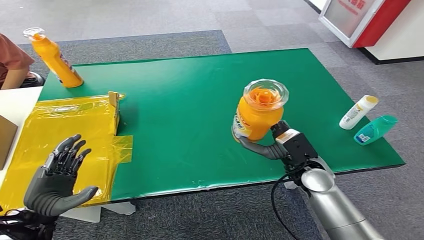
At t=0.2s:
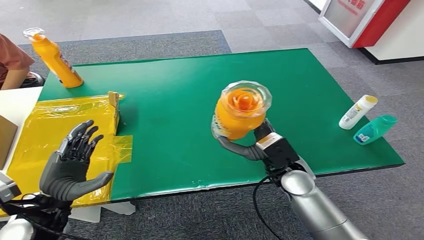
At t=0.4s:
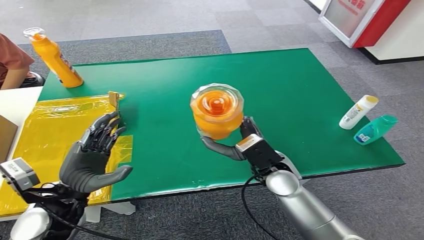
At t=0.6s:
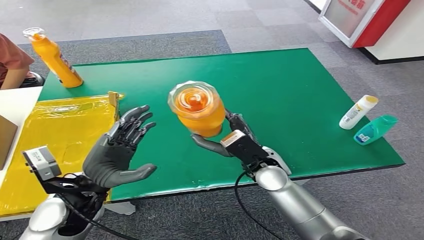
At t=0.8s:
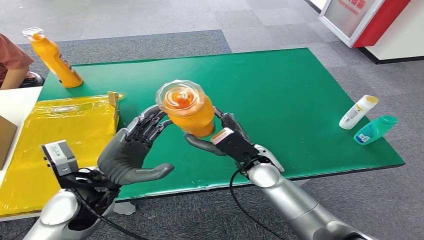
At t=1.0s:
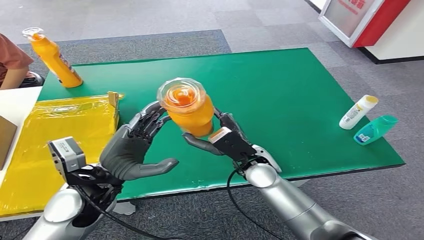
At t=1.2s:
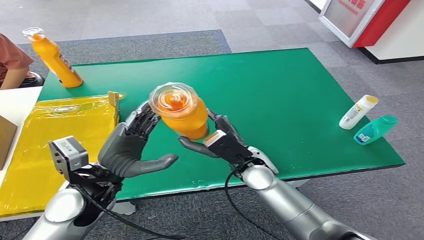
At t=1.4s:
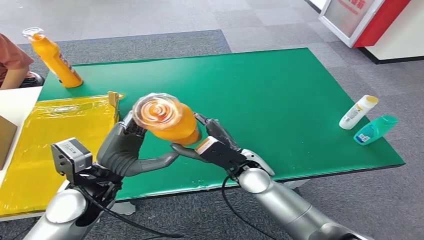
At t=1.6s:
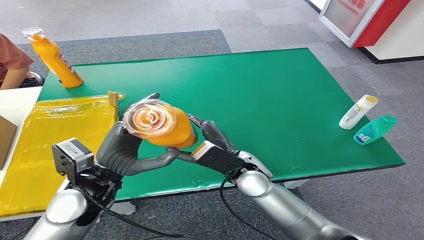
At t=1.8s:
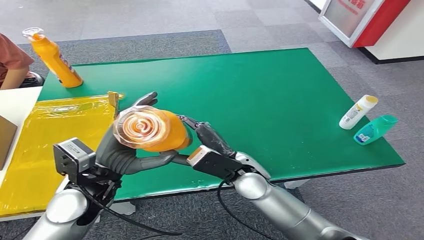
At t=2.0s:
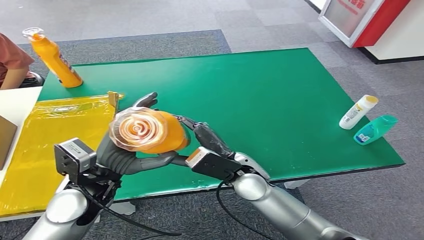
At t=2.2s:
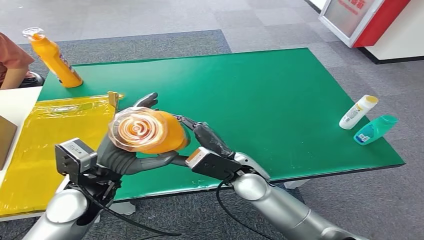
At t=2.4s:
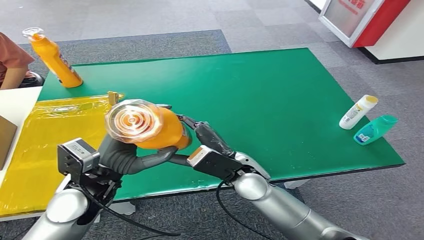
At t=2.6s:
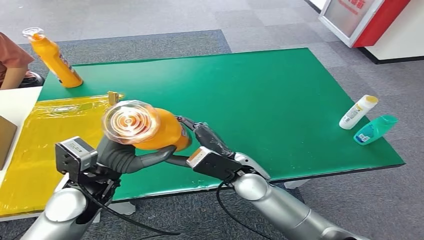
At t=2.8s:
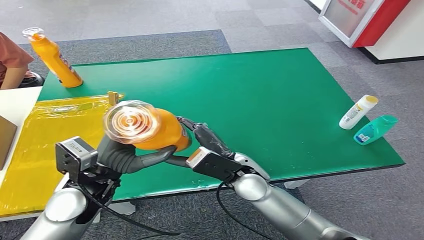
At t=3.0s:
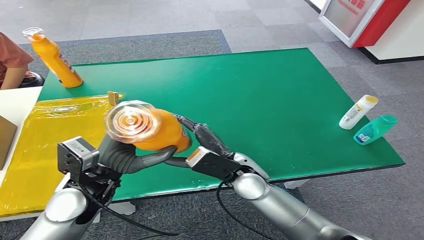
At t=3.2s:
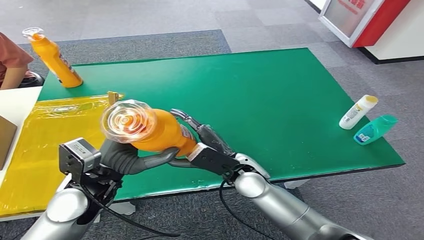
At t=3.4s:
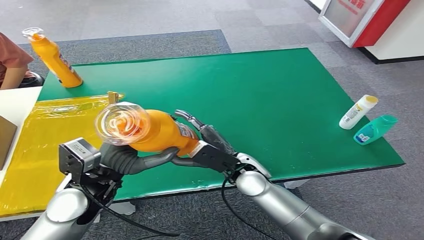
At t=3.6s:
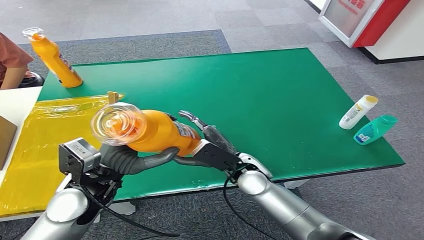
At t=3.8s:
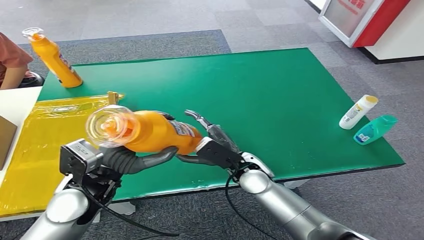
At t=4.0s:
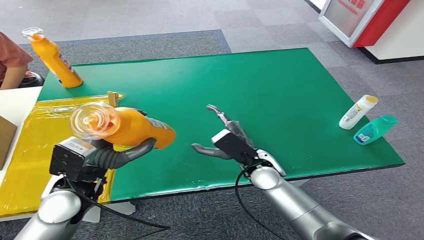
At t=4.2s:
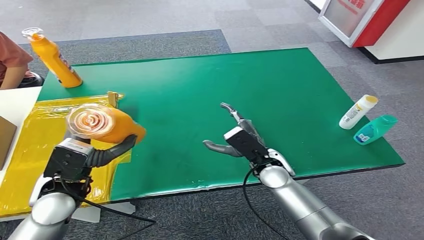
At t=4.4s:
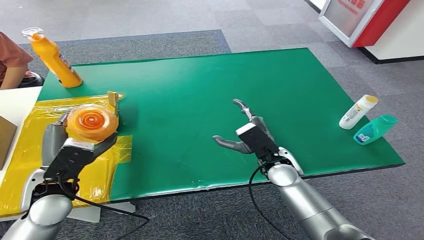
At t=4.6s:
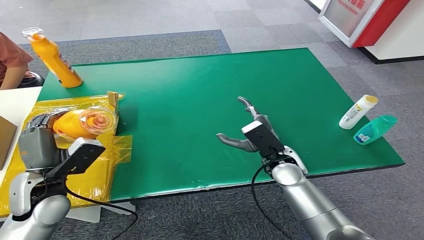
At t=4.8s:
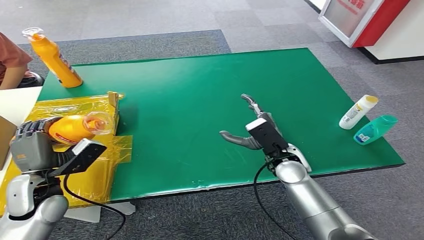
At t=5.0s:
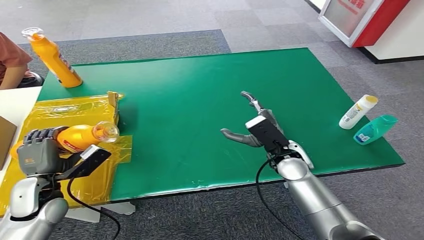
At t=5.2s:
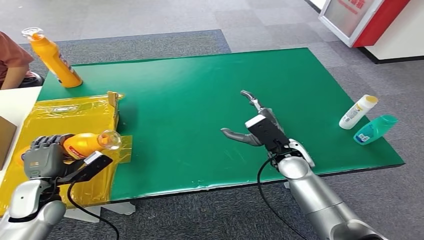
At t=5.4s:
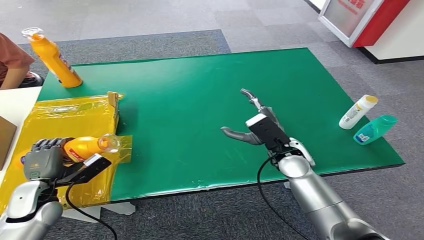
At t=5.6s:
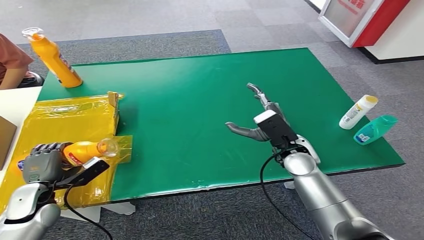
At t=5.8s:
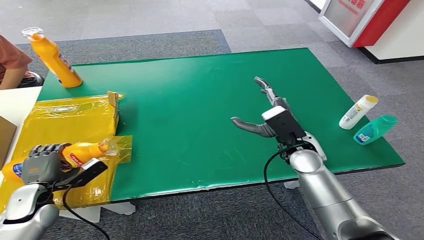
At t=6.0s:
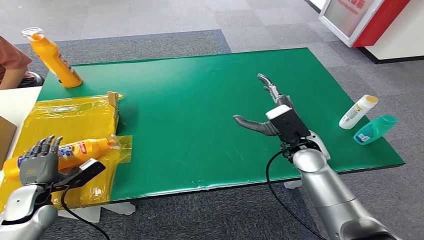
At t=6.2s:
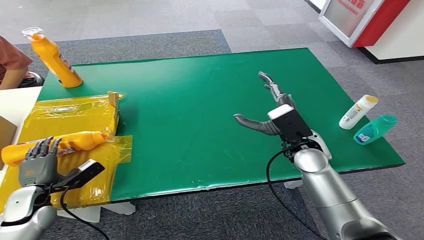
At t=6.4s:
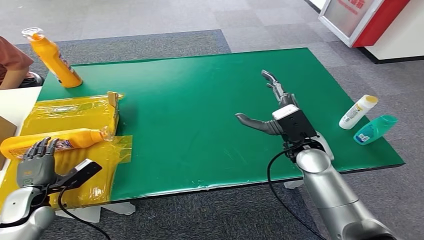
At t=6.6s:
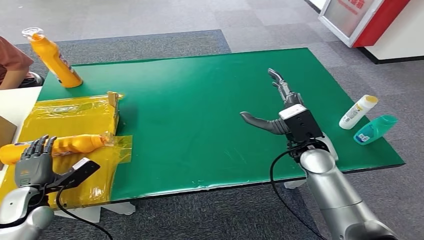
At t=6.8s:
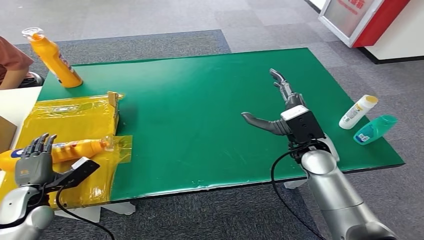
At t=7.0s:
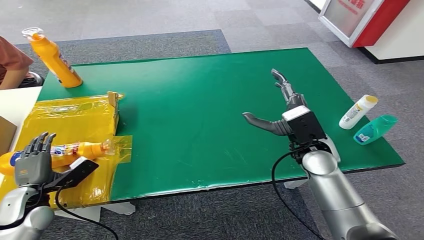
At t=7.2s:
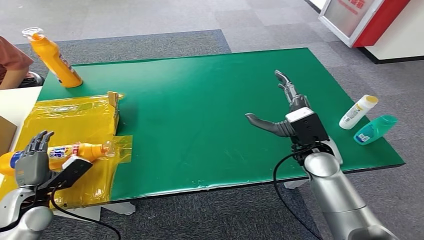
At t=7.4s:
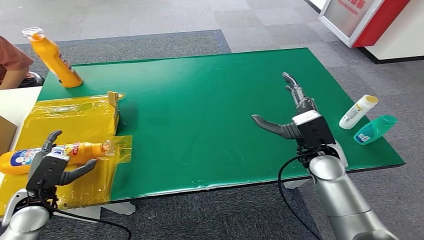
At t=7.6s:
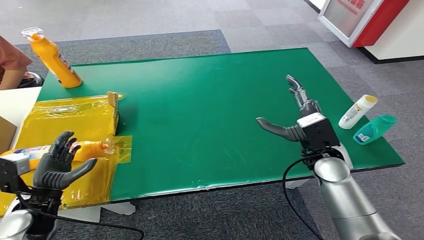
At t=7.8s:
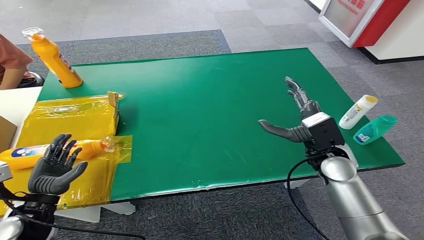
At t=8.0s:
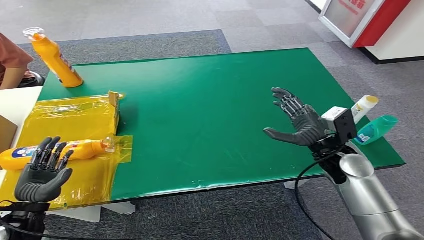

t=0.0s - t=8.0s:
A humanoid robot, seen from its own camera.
Step, t=0.2s - t=8.0s: Turn the bottle to the front side.
t=1.6s - t=3.2s: There are only small adjustments of the hands.
t=4.8s - t=6.4s: The right hand shifts about 5 cm upward; the left hand heads downward and to the left, covering approximately 10 cm.
t=6.4s - t=8.0s: The left hand shifts about 5 cm backward; the right hand goes roughly 5 cm to the right.

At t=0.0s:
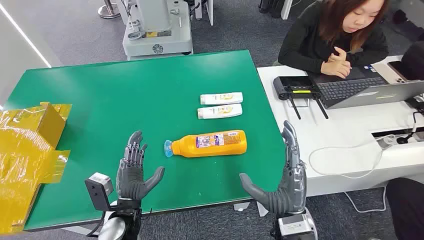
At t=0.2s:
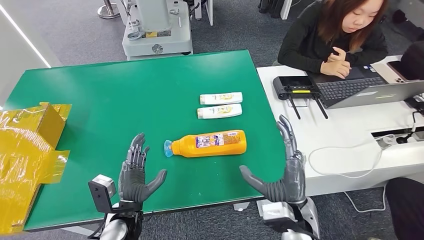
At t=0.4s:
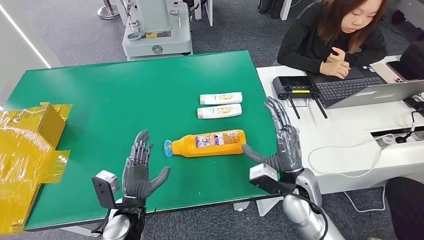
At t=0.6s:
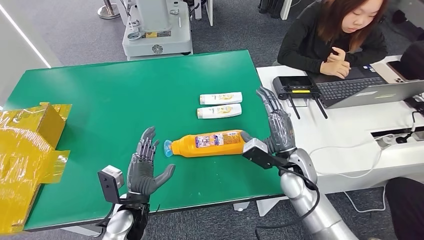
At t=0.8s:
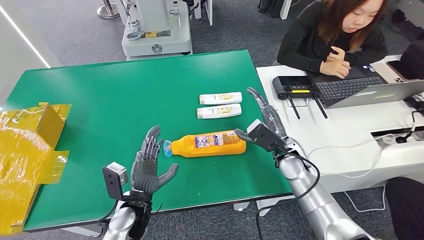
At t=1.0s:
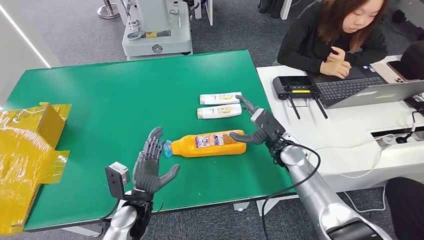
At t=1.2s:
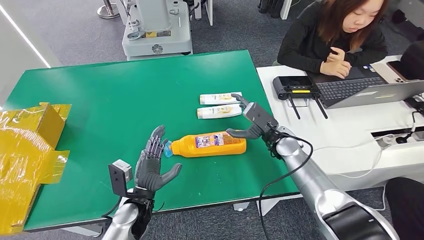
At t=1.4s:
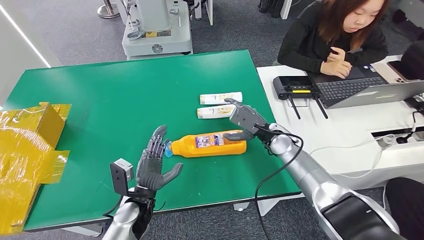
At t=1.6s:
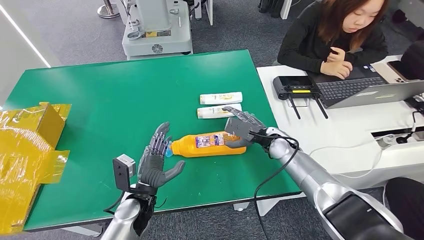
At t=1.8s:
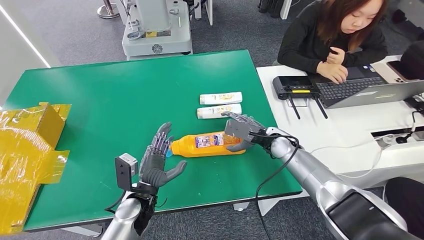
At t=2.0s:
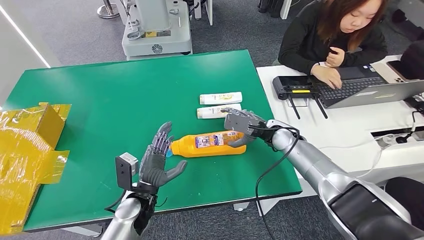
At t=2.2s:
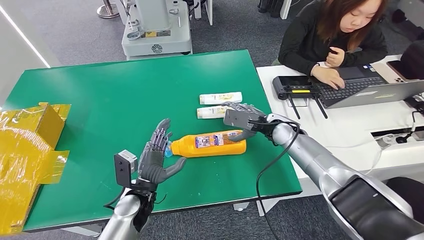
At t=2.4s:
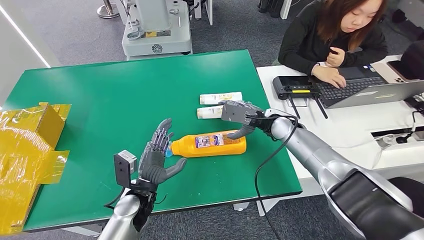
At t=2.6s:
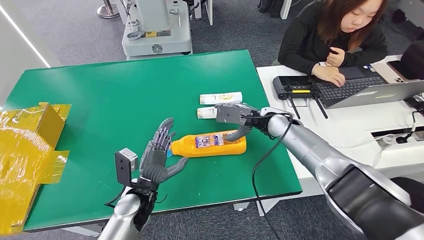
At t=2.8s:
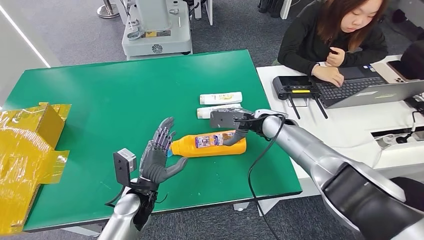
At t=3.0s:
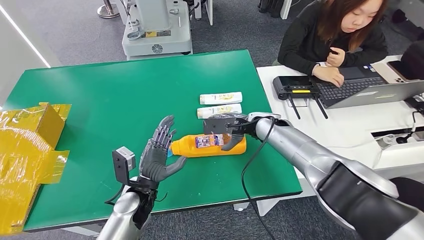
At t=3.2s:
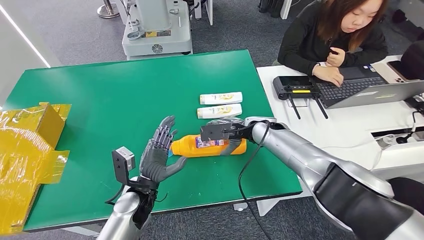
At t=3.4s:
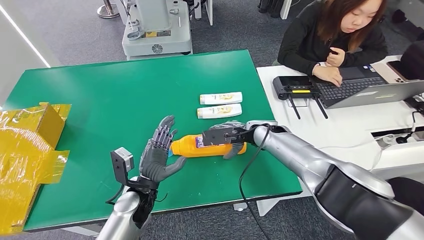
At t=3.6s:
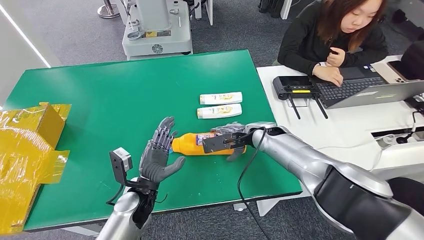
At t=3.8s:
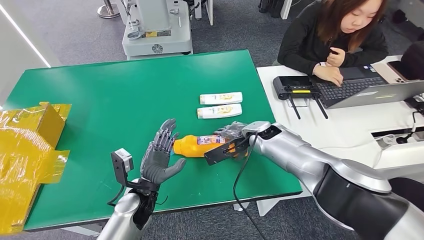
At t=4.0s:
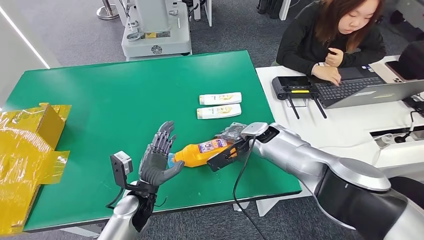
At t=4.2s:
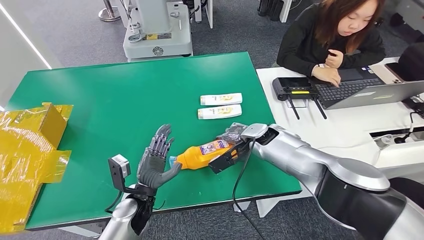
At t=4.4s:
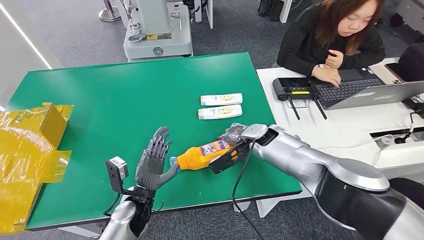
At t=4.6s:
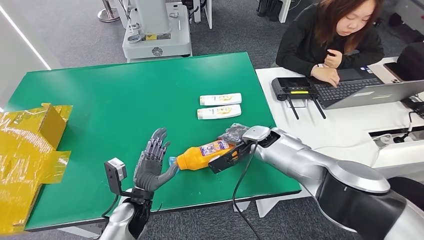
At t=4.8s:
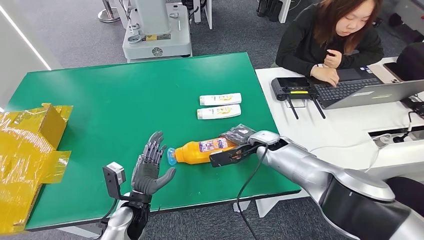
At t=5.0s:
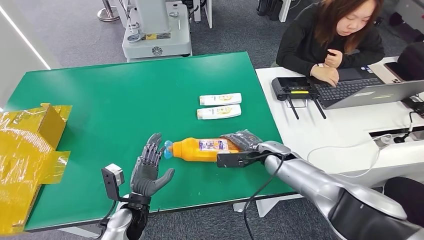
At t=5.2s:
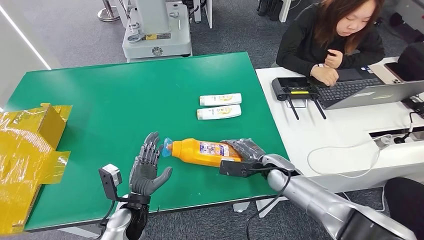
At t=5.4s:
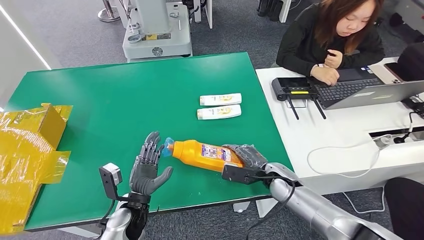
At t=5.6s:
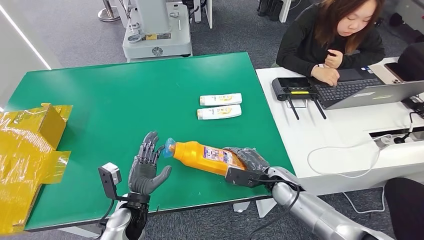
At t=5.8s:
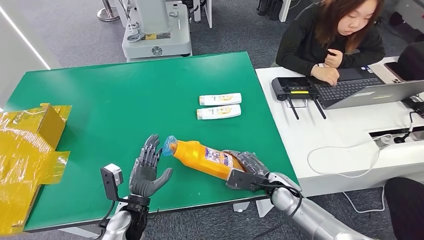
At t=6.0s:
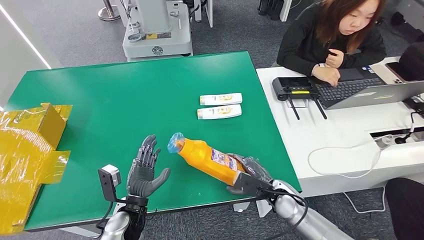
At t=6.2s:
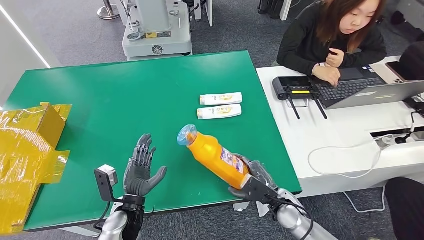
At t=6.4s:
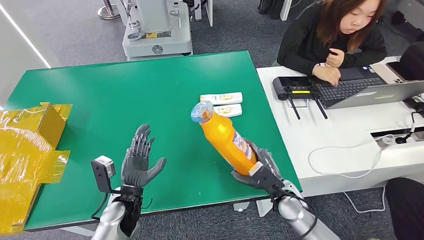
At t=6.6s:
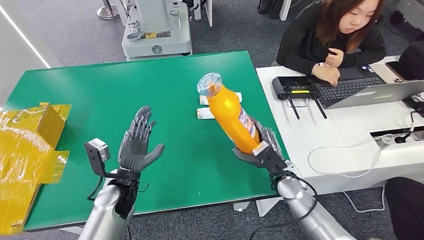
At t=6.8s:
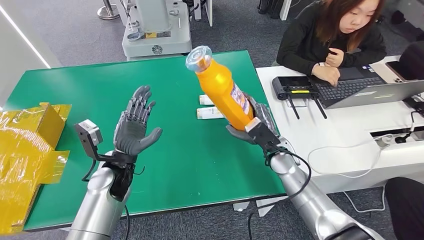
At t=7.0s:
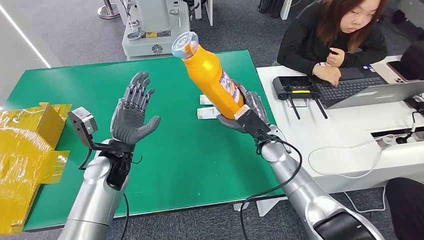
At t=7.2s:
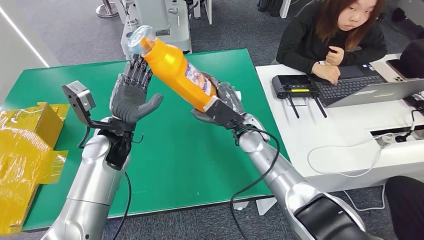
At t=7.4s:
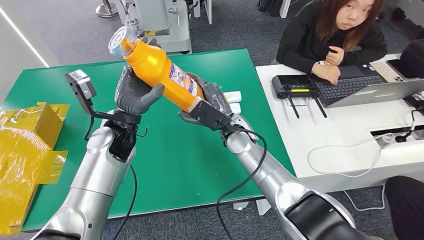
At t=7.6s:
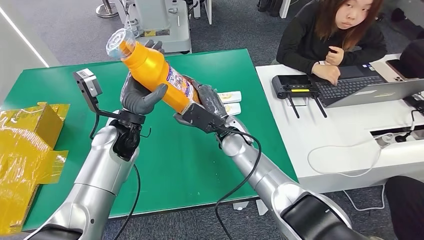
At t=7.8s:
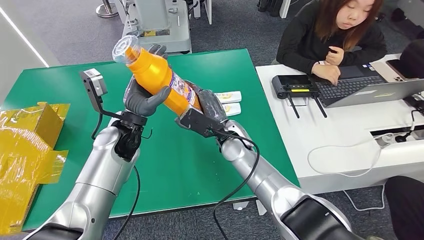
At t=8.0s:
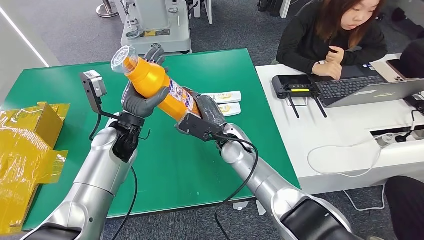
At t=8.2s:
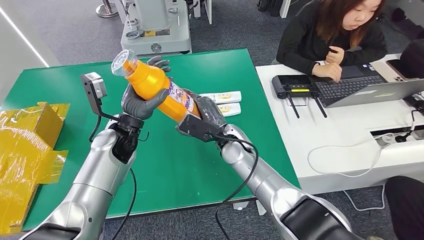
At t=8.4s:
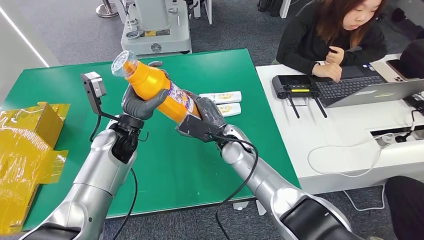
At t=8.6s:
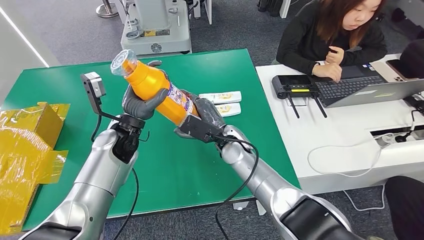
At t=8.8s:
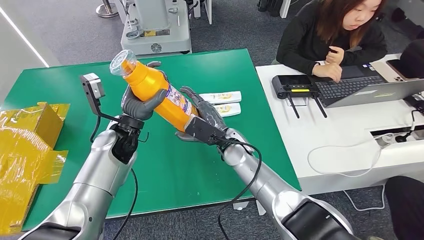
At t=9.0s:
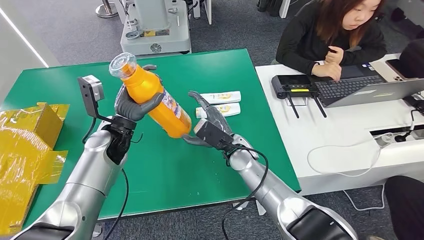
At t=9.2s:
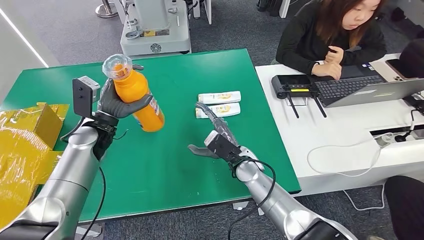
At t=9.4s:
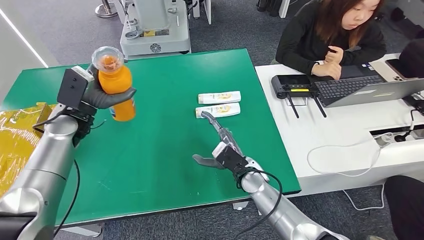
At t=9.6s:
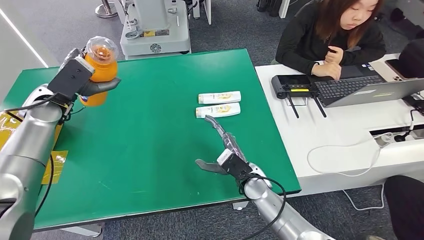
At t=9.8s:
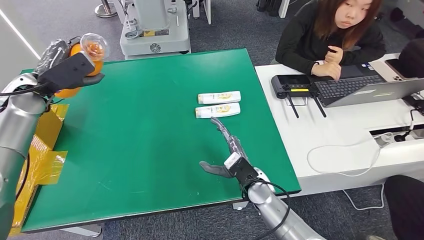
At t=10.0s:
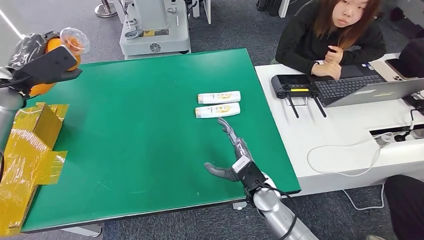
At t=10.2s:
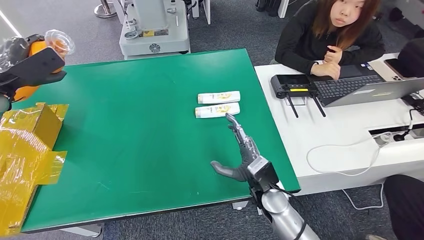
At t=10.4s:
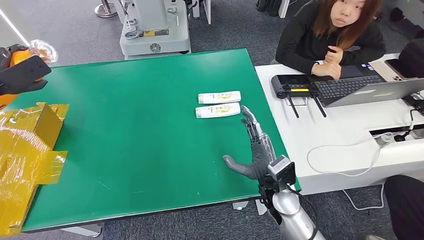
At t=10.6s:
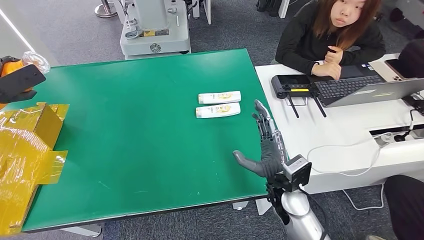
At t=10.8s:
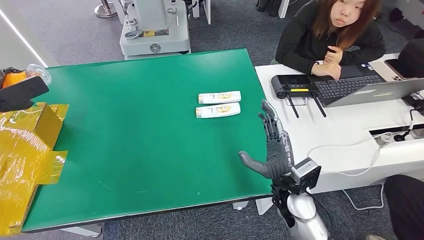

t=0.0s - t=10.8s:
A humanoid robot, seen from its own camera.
Step, t=0.0s - t=6.6s: Pick up the bottle from the table.
t=1.6s - t=3.0s: The right hand moves upward, roughly 5 cm.
